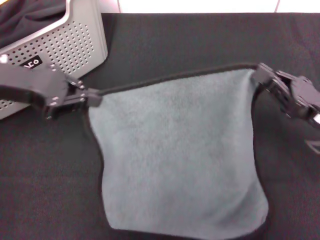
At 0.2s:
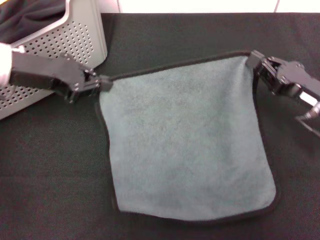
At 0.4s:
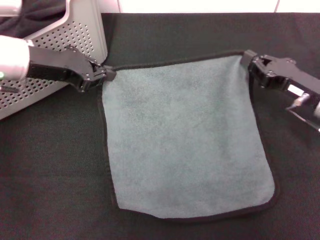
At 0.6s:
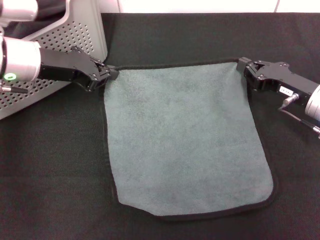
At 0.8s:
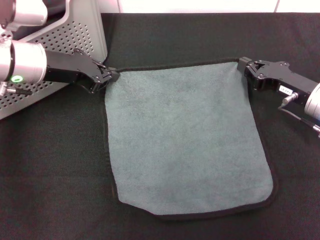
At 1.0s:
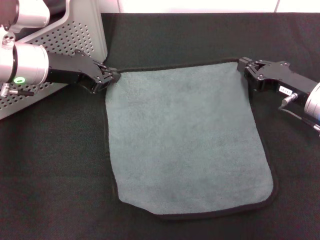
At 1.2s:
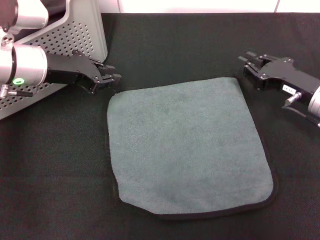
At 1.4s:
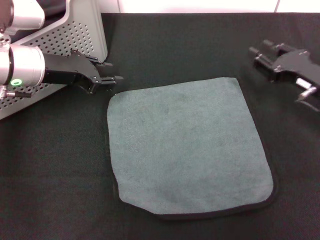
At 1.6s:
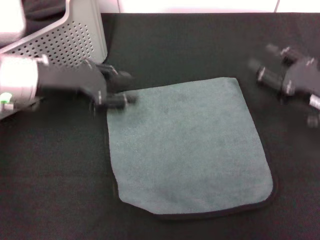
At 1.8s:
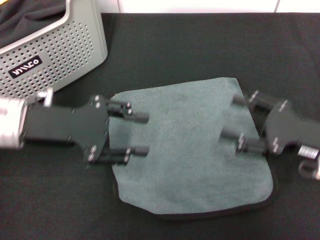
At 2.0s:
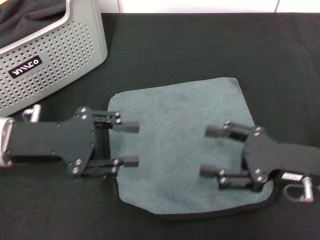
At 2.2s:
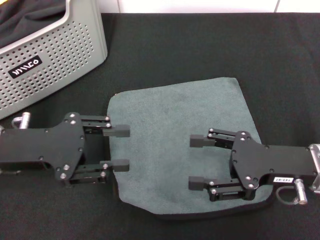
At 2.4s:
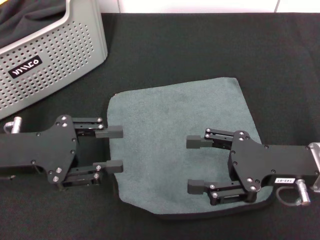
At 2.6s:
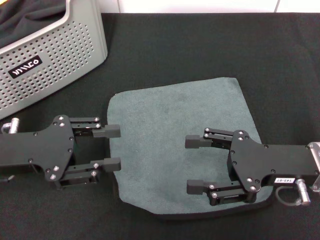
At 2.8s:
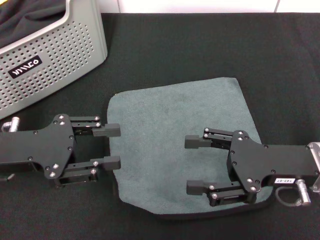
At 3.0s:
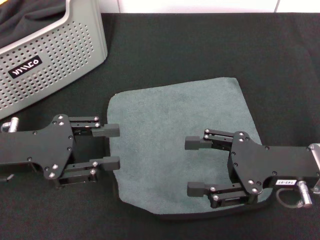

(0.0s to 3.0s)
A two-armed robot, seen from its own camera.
Task of the whole recording: pick up the towel from the storage box and lay it flat on the black tablecloth.
0.0s - 1.6s: The left gripper changes place by some 5 cm, and opens up.
1.6s - 3.0s: The left gripper heads backward, covering about 10 cm. The right gripper shifts about 10 cm to the left and backward, and opens up.

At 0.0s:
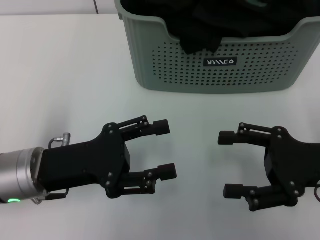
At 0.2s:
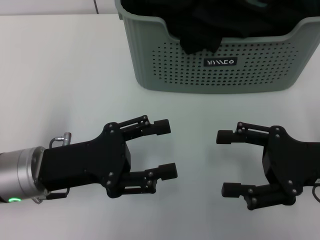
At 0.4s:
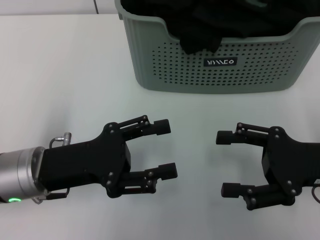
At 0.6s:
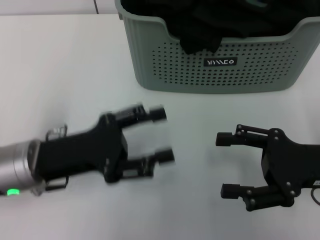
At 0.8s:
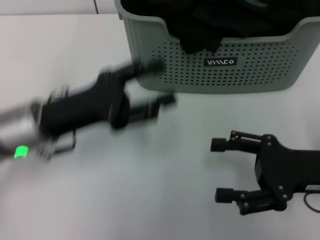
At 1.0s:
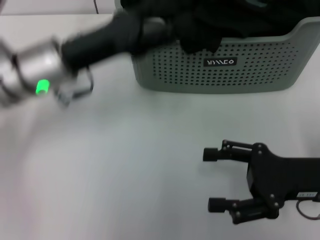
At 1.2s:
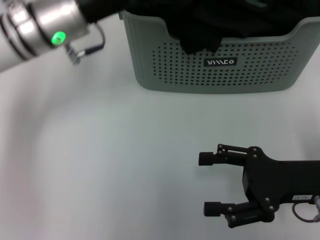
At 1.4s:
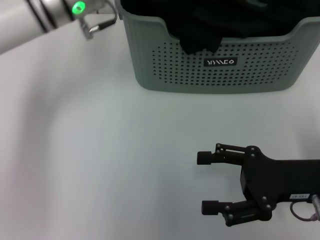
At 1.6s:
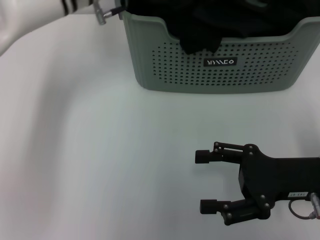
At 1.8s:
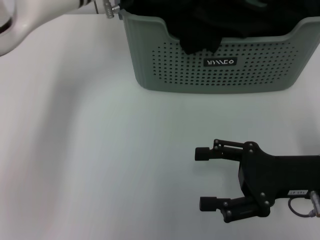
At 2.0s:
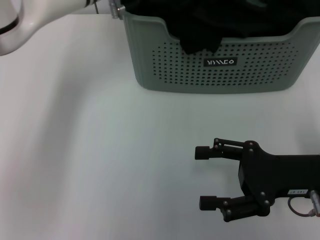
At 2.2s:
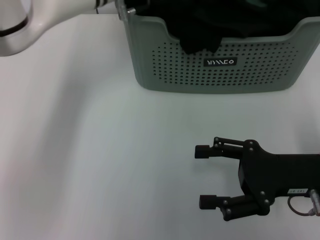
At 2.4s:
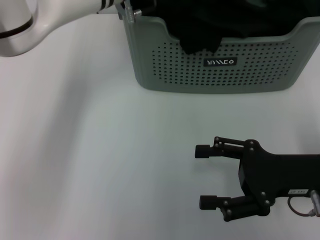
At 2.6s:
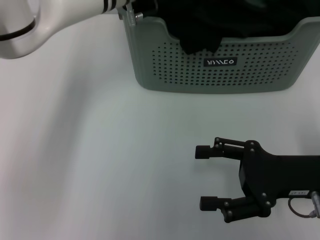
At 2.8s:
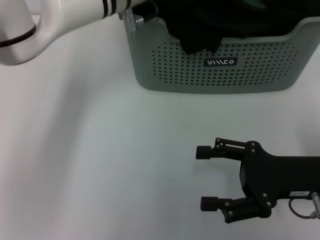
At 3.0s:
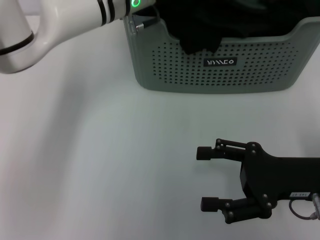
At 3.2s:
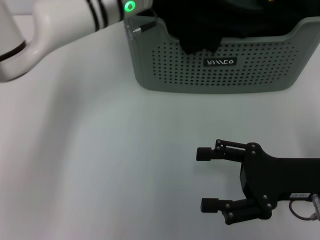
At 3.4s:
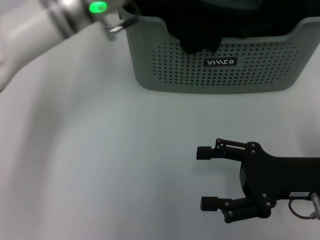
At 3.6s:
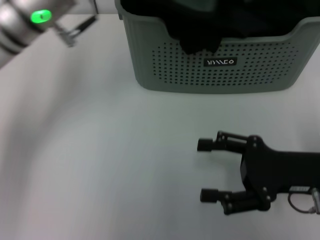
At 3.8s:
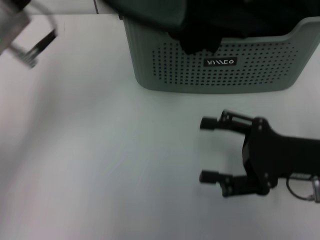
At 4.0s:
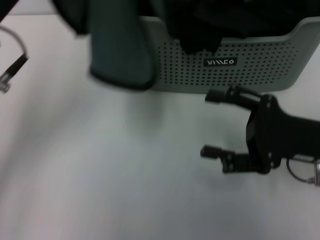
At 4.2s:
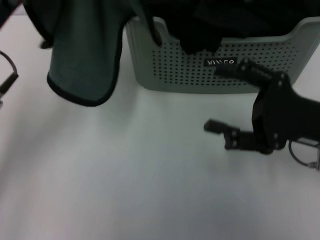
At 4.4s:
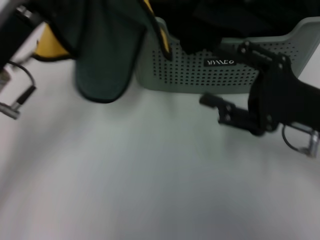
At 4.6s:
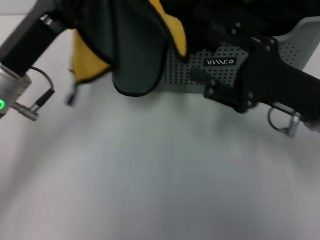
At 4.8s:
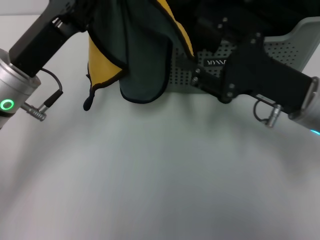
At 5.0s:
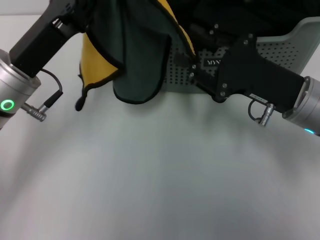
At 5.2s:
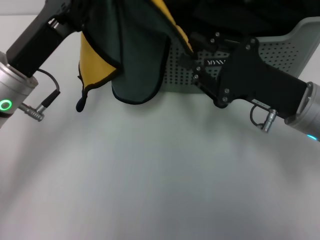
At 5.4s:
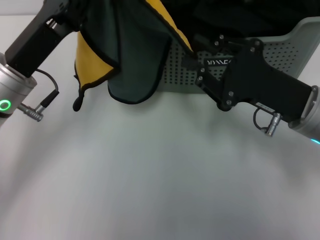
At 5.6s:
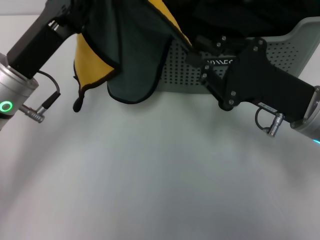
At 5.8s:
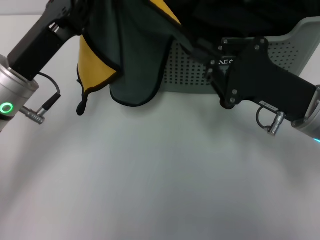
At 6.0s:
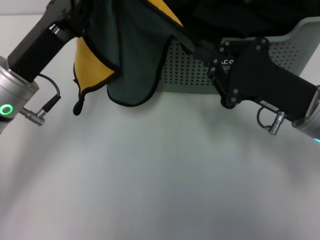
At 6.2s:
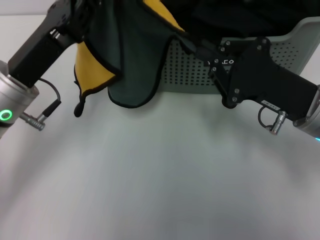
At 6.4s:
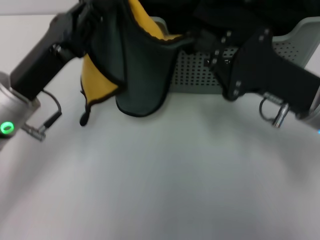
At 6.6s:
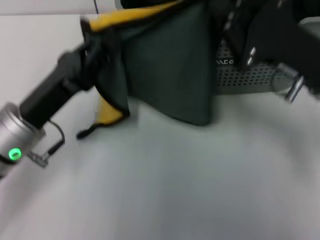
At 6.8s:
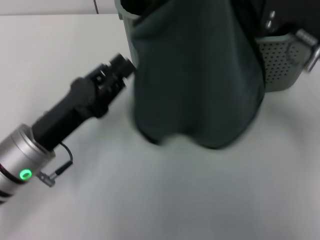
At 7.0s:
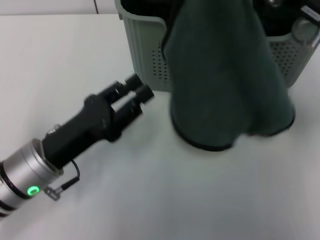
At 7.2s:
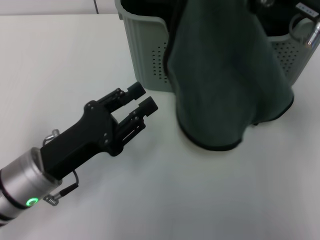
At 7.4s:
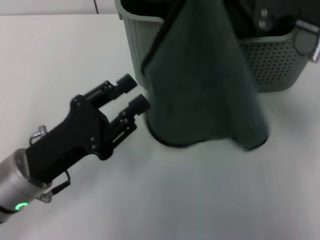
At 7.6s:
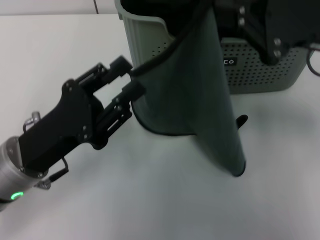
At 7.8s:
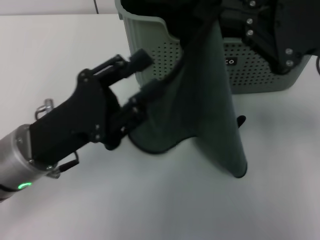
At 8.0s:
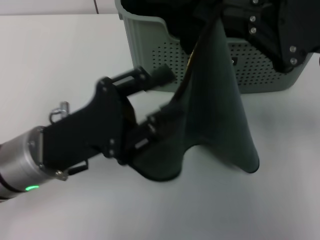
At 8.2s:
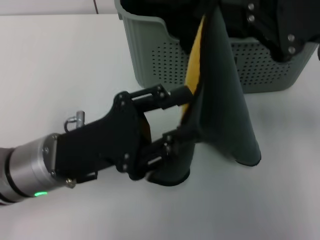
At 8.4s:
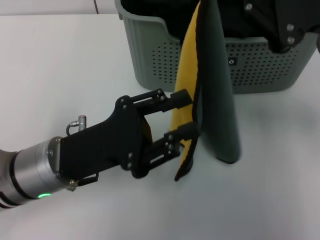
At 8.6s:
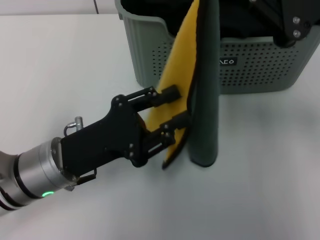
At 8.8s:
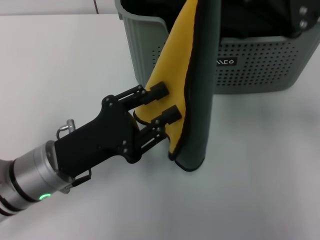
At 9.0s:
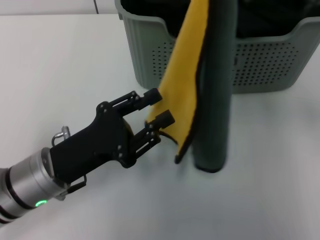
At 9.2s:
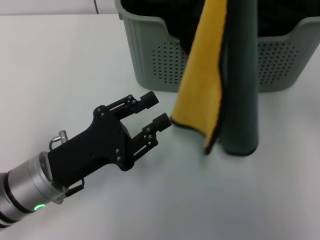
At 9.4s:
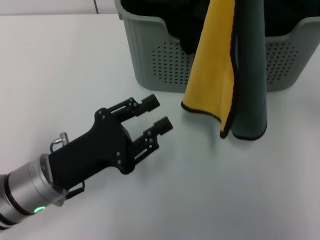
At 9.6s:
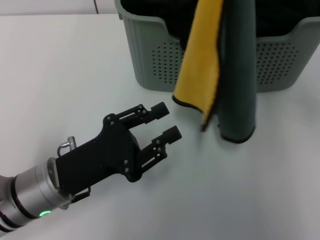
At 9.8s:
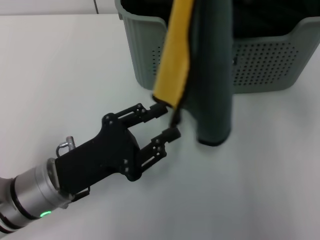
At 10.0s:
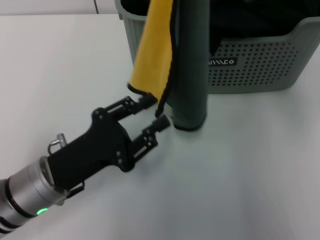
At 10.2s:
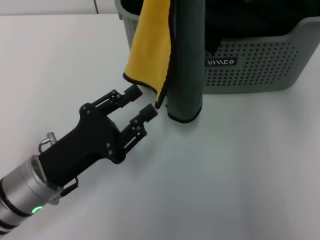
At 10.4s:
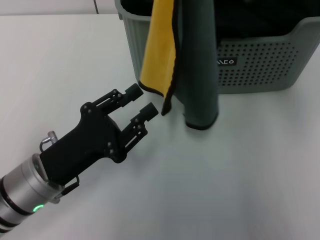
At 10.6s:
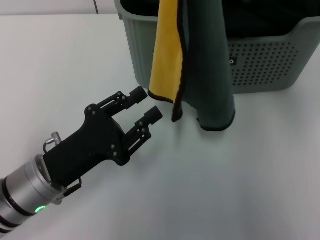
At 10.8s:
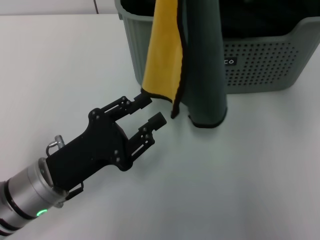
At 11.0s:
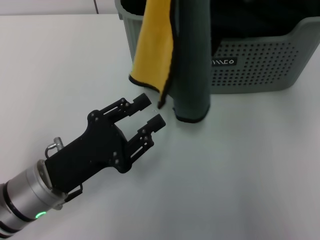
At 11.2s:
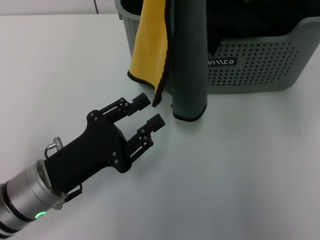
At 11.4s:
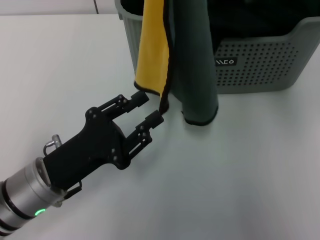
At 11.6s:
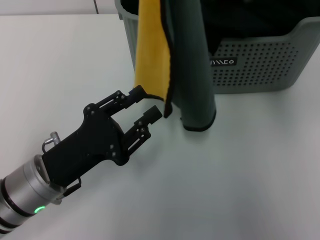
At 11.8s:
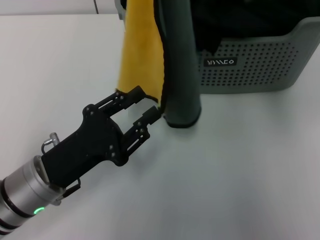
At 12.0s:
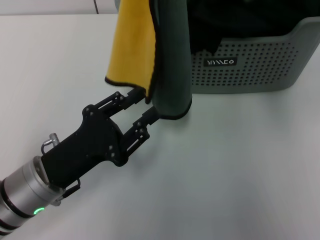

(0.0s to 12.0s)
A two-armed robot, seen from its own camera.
Task of the whole recording: pick up the towel from the storage box and lay it flat on the table.
Step, 0.0s - 3.2s: Pick up a towel with the left gripper.
Step, 3.4s - 5.8s: Spread the towel flat with the left gripper.
0.0s - 1.6s: The left gripper travels forward, upward and to the right by roughly 25 cm.
1.6s - 3.0s: The left gripper closes up.
3.0s - 4.4s: The left gripper goes approximately 20 cm backward and to the left.
4.4s - 6.0s: The right gripper closes up.
6.0s - 7.6s: The right gripper goes roughly 10 cm upward. Meanwhile the left gripper moves backward and downward, roughly 10 cm, and opens.
7.6s - 9.0s: The right gripper moves upward, approximately 5 cm.
10.4s - 12.0s: The grippers make only small movements.

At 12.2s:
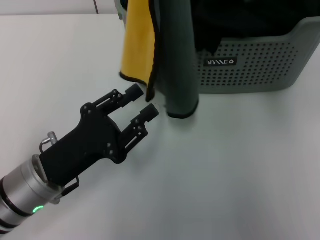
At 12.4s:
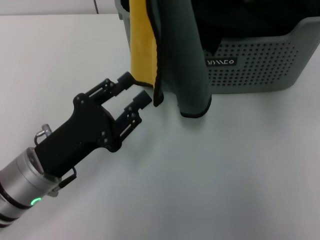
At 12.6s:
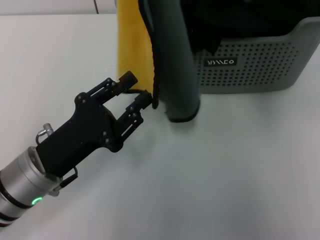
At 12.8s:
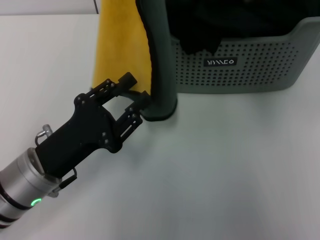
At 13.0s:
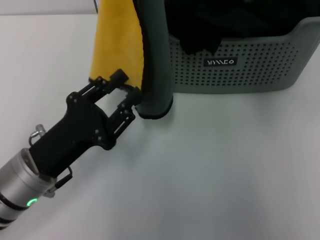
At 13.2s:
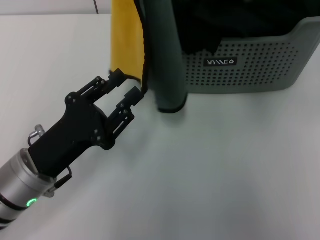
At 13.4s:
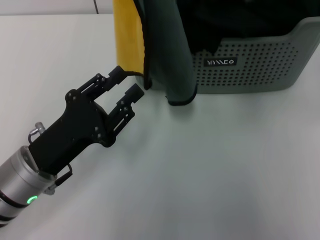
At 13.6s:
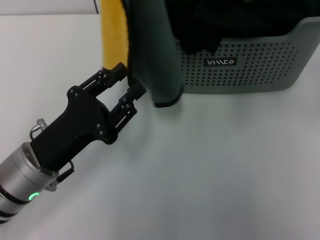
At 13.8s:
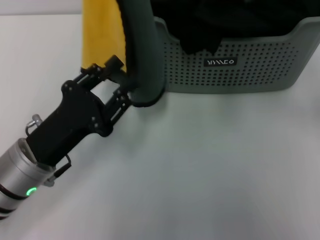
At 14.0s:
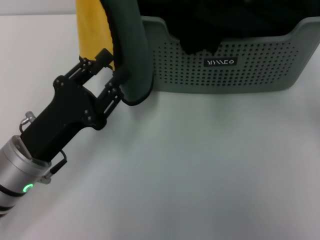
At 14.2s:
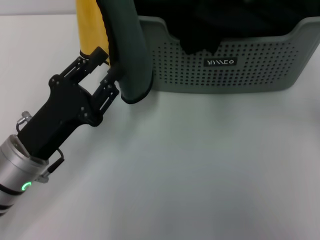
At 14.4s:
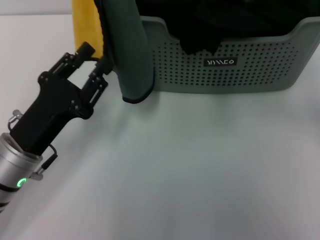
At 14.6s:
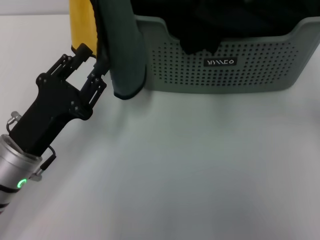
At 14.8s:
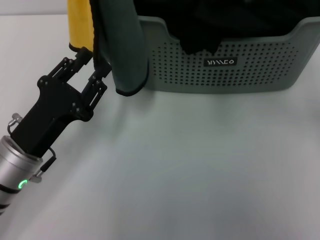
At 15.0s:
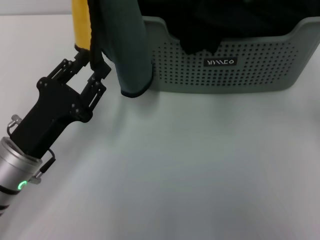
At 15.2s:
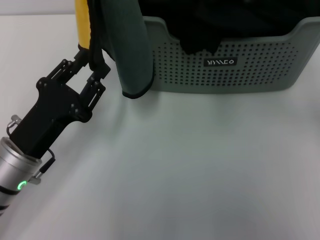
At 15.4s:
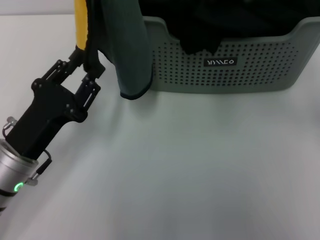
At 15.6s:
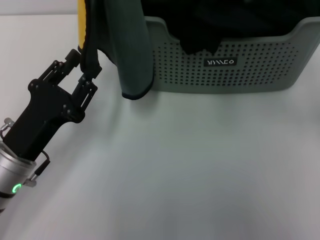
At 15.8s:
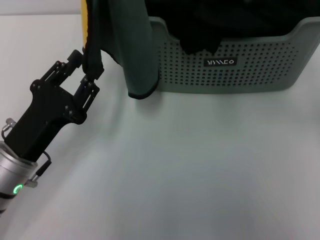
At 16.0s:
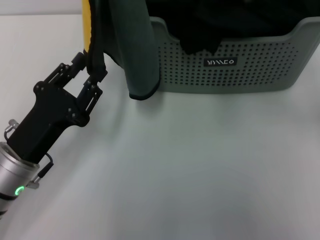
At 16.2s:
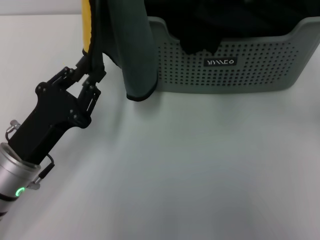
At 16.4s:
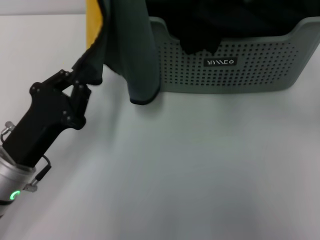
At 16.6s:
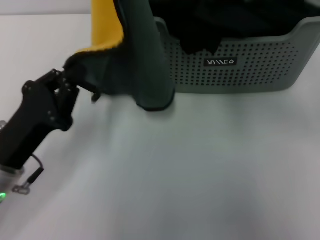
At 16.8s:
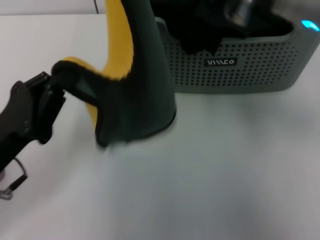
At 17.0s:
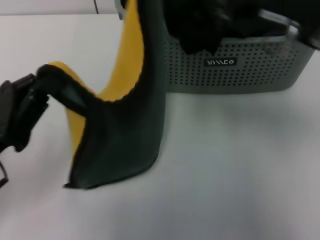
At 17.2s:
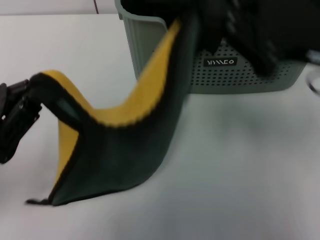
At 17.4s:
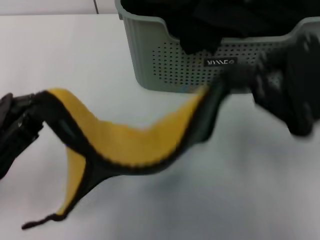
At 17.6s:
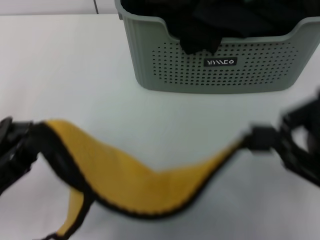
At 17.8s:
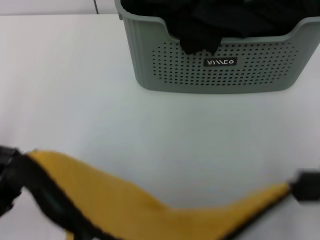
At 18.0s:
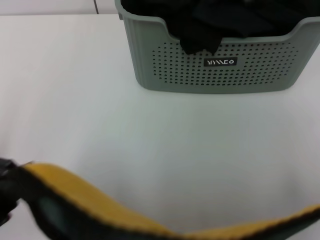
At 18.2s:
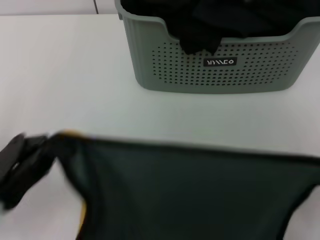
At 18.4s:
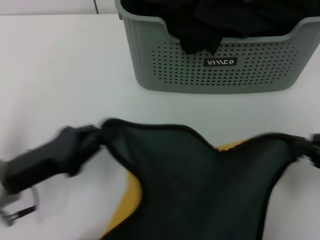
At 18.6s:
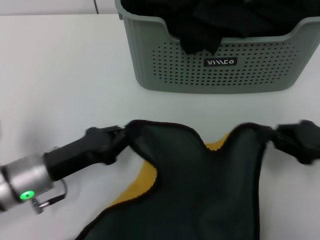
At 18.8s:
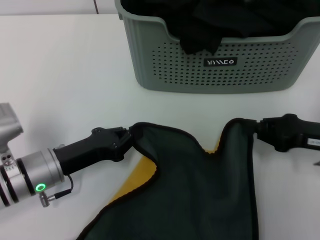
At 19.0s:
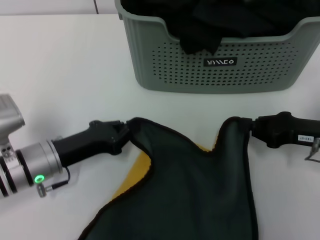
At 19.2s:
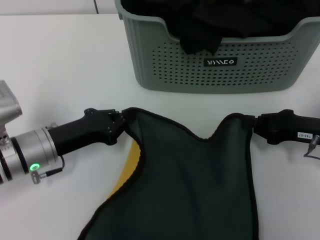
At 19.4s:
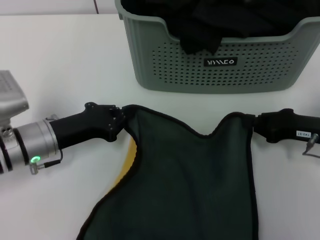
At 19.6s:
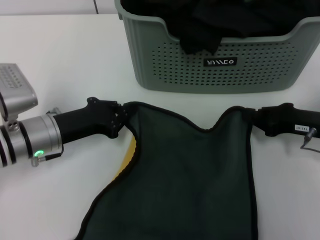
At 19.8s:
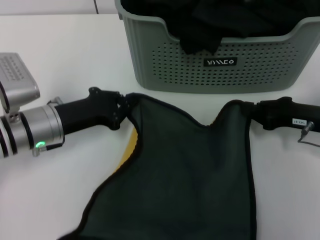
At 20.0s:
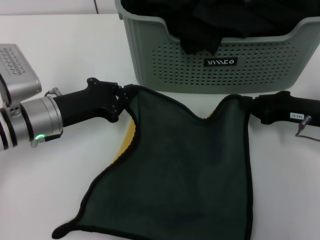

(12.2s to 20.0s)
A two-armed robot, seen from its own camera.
Task of the whole recording: pick up the towel from the storage box and lay it flat on the table.
12.2s - 13.8s: The right gripper shifts roughly 5 cm to the left.
13.8s - 15.4s: The grippers move only a little.
15.4s - 16.8s: The right gripper shifts by approximately 5 cm. Meanwhile the left gripper closes.
16.8s - 18.4s: The right gripper travels to the right, downward and backward by some 25 cm. Meanwhile the left gripper goes upward and returns, approximately 5 cm each way.
18.4s - 20.0s: The right gripper goes some 15 cm forward, downward and to the left. Meanwhile the left gripper moves forward, about 10 cm.
